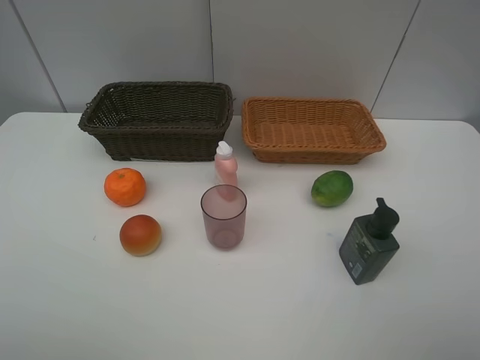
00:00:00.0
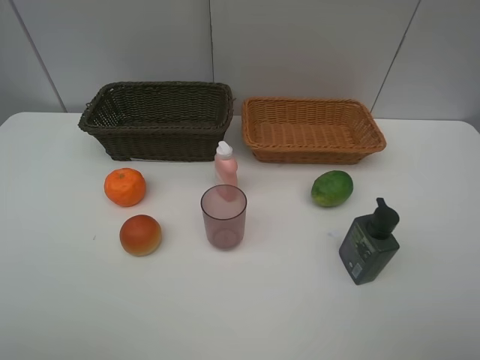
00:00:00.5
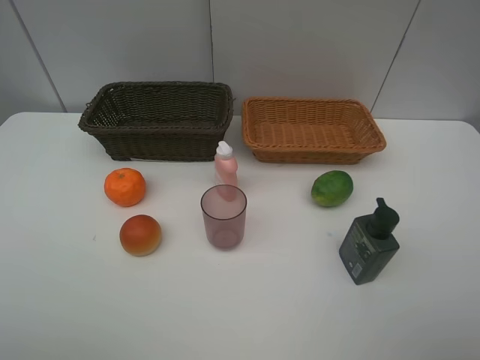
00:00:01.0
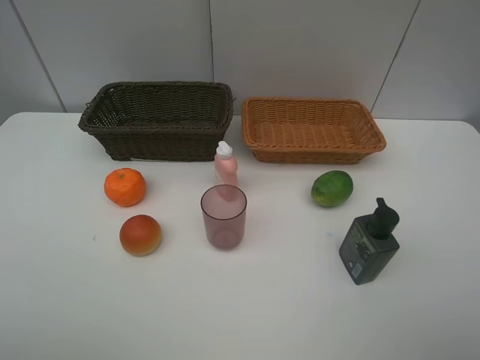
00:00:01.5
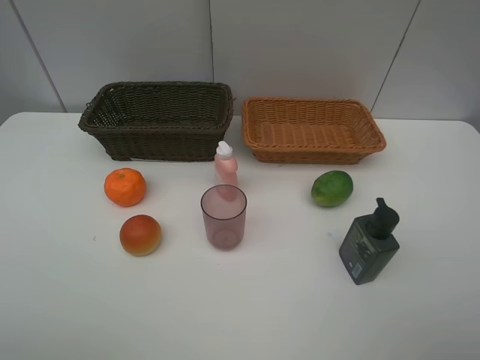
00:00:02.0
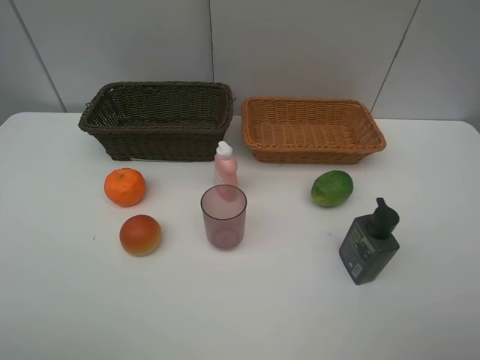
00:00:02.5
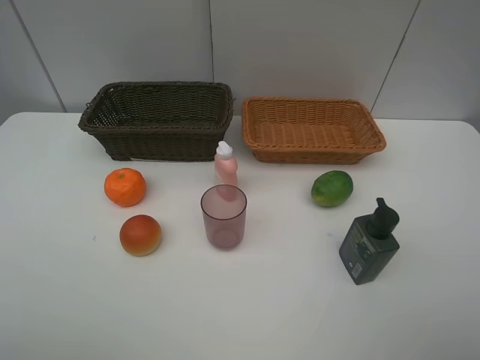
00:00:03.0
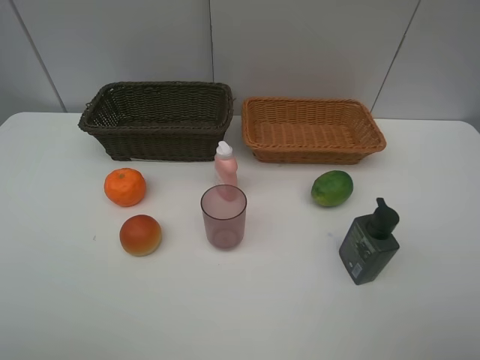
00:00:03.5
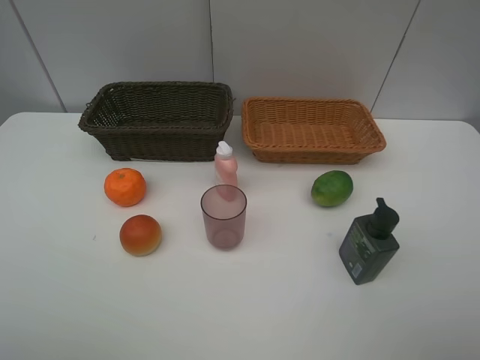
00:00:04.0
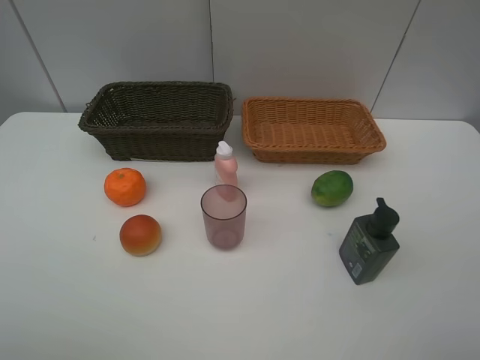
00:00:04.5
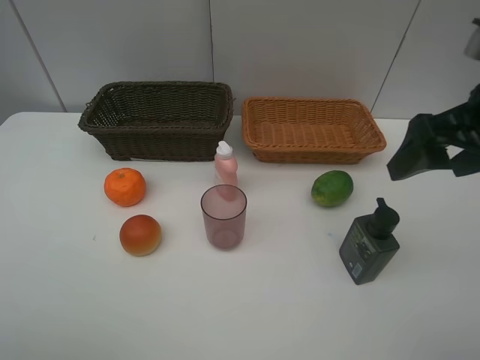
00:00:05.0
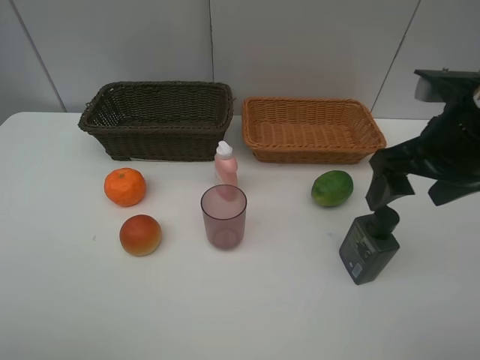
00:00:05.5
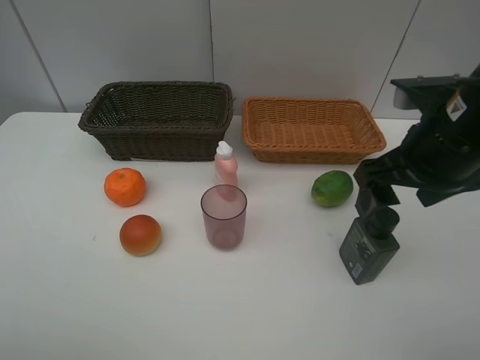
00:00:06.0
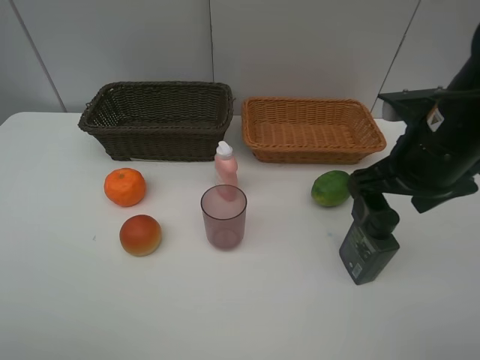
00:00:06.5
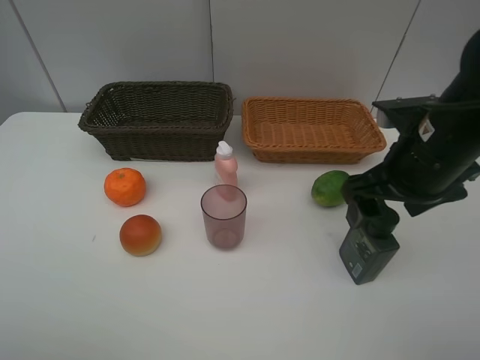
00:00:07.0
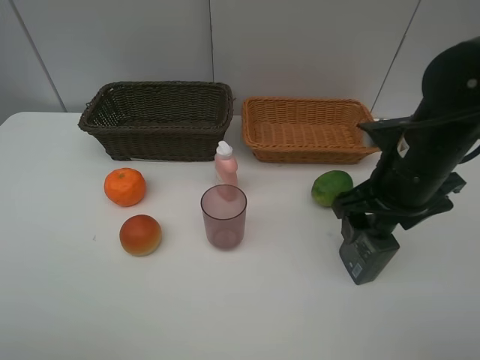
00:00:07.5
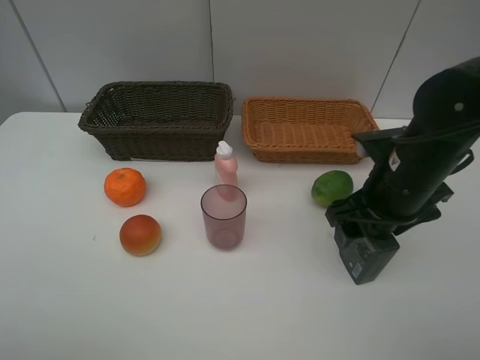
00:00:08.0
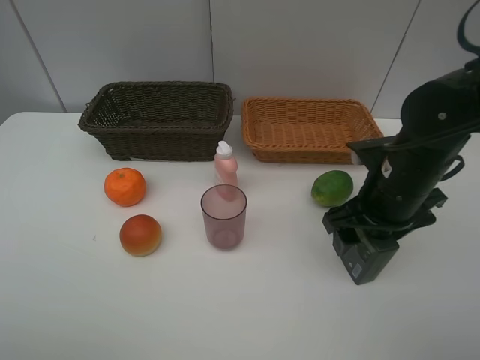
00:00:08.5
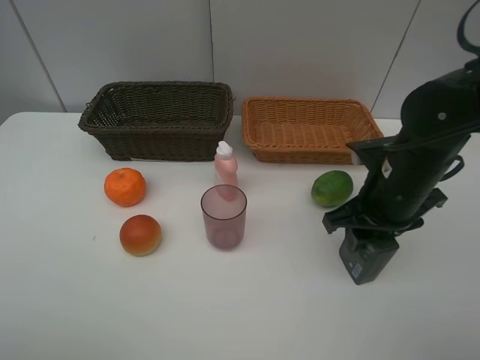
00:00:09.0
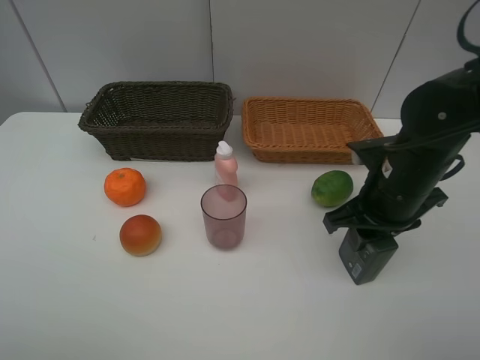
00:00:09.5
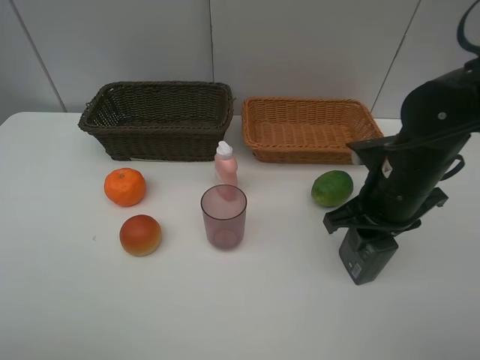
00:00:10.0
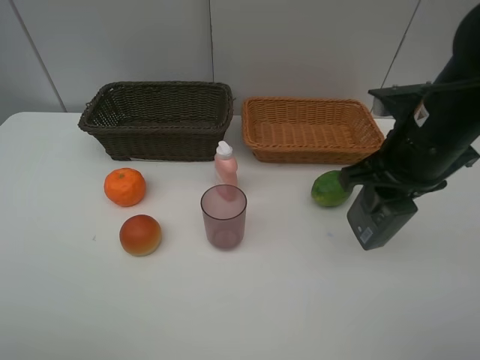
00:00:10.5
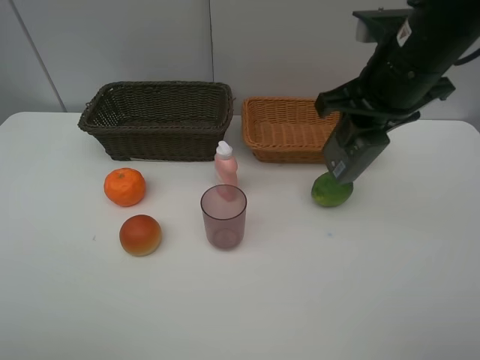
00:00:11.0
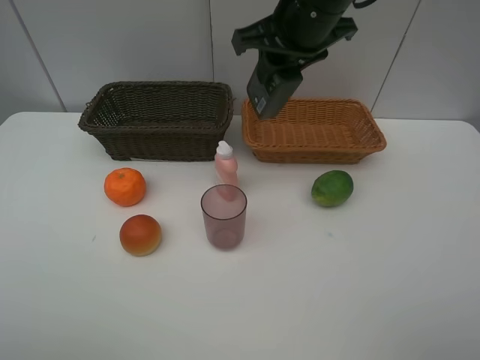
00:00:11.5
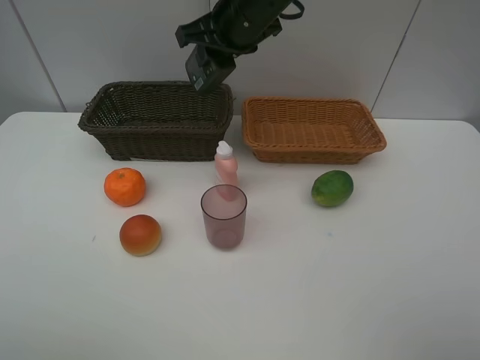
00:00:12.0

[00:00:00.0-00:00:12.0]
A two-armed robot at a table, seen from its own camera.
Task of the whole recording: place multiple objects separately in different baskets.
00:00:00.0 to 00:00:04.0: Neither gripper changes place.
00:00:04.0 to 00:00:06.0: The right gripper is displaced forward and to the left by about 25 cm.
00:00:06.0 to 00:00:08.0: The right gripper is displaced downward by approximately 5 cm.
00:00:08.0 to 00:00:10.0: The right gripper closes.
00:00:10.0 to 00:00:12.0: The right gripper travels to the left, forward and upward by roughly 25 cm.

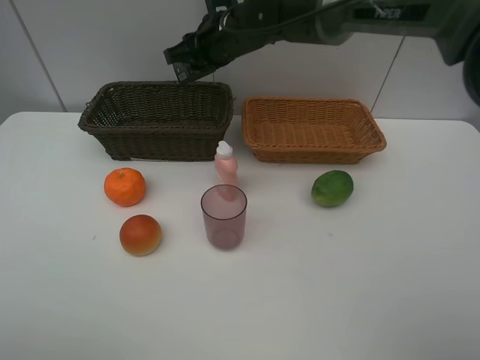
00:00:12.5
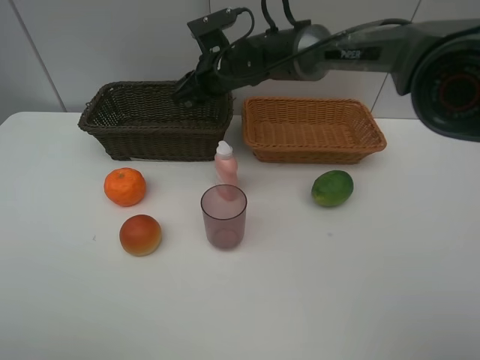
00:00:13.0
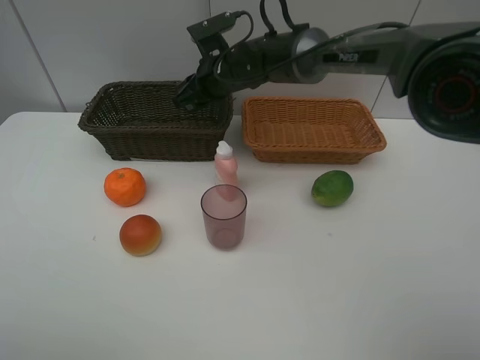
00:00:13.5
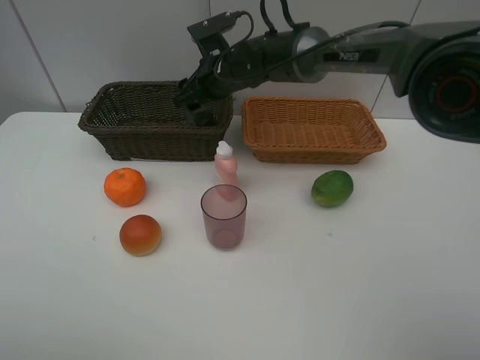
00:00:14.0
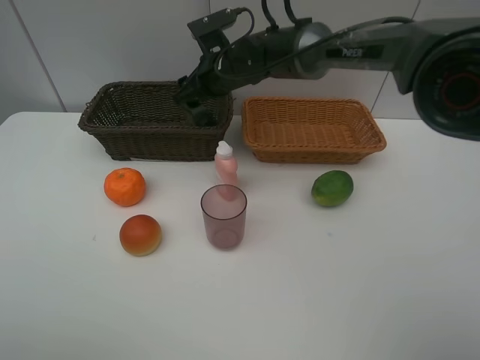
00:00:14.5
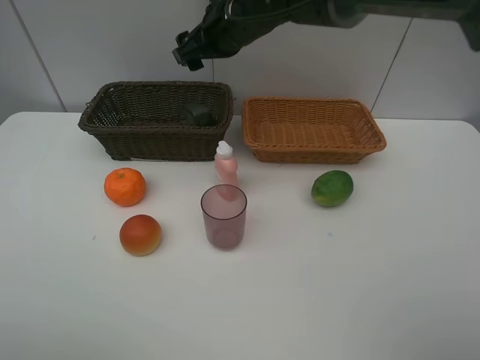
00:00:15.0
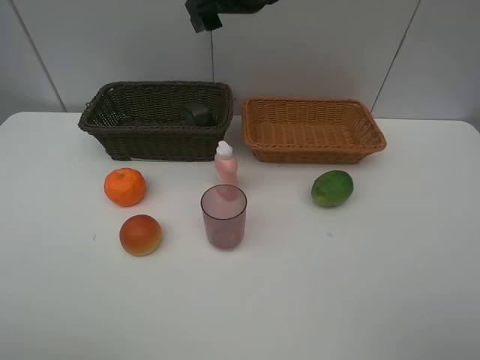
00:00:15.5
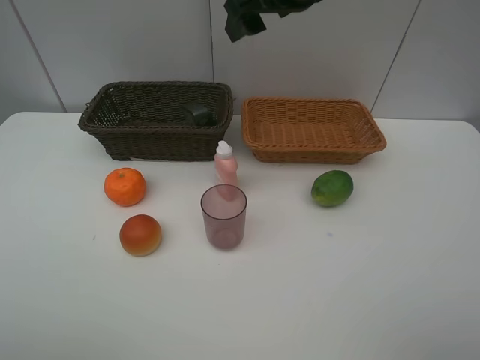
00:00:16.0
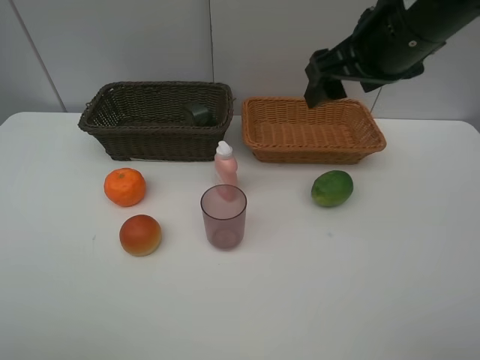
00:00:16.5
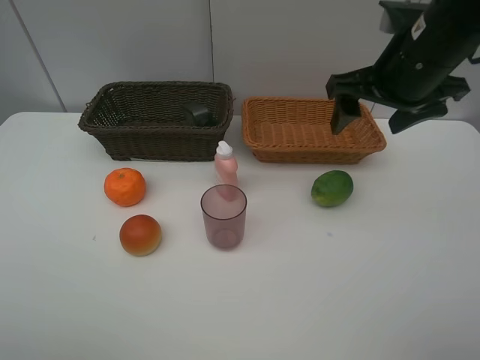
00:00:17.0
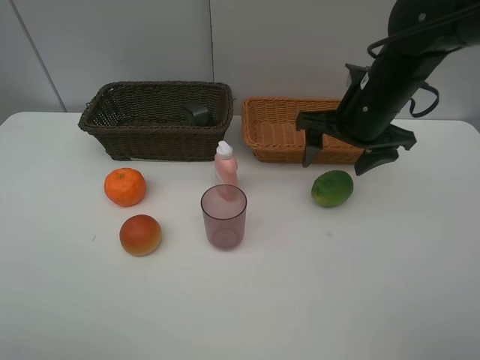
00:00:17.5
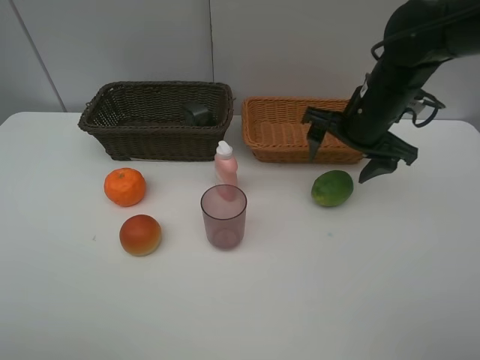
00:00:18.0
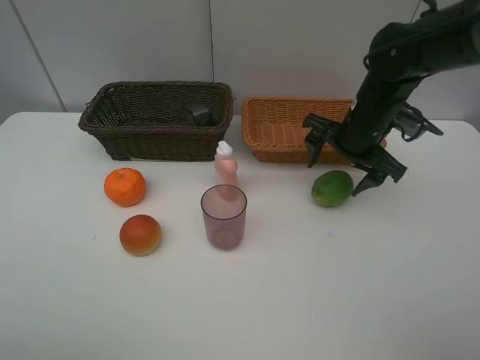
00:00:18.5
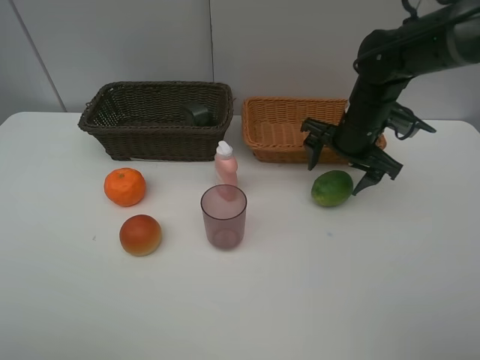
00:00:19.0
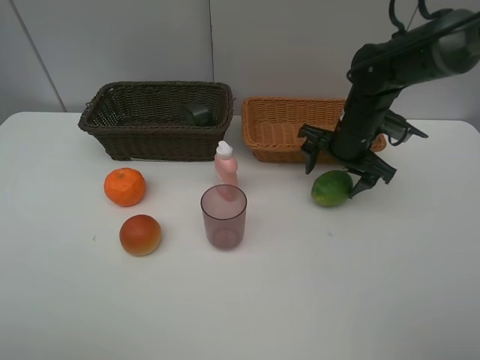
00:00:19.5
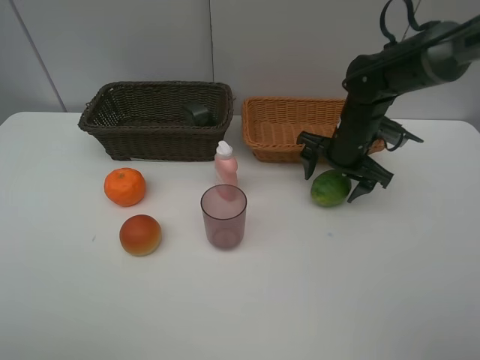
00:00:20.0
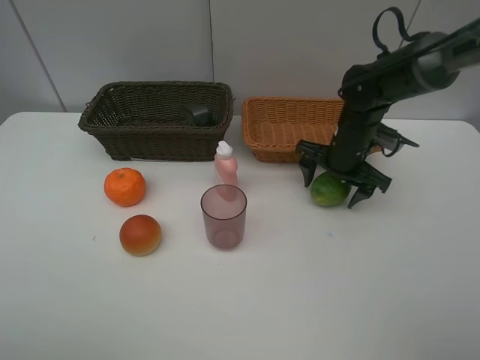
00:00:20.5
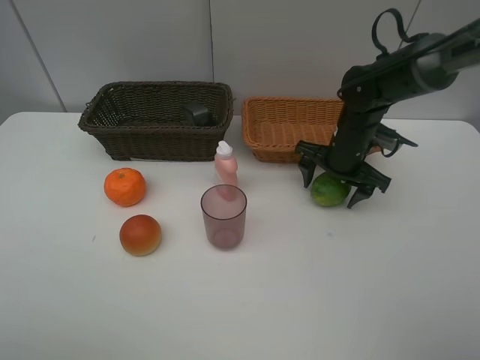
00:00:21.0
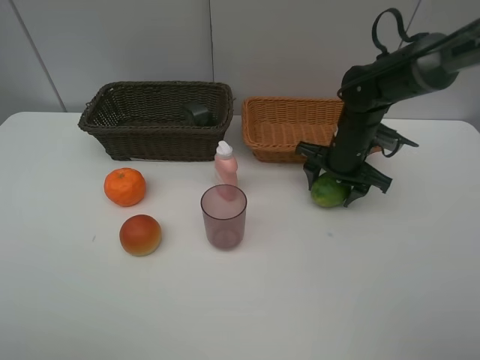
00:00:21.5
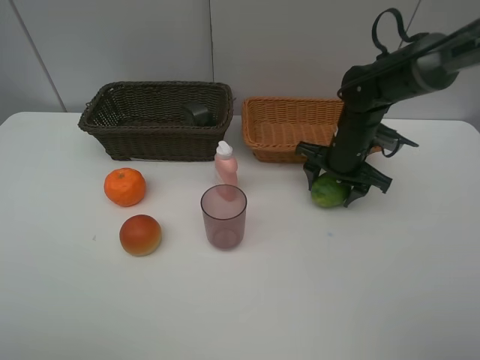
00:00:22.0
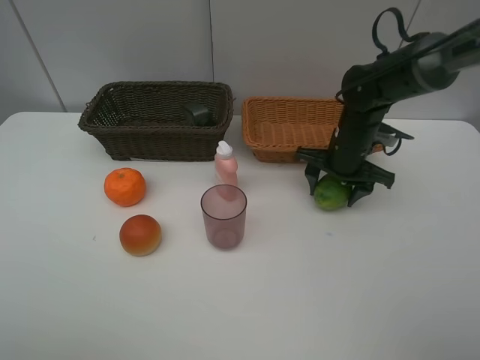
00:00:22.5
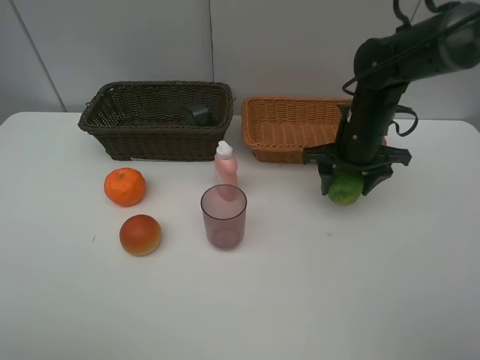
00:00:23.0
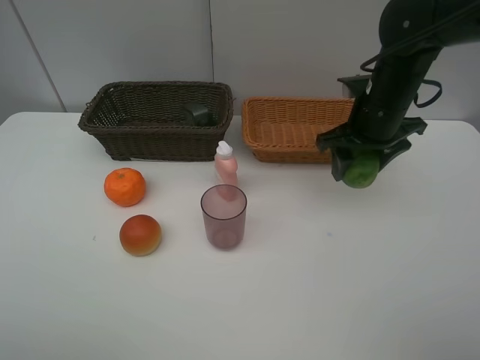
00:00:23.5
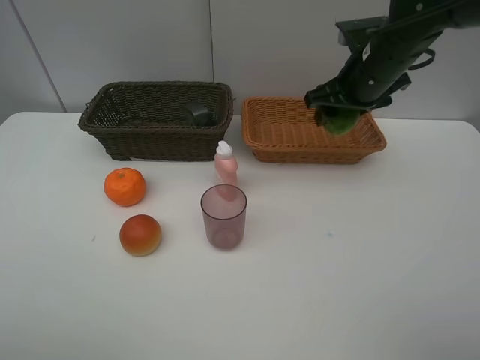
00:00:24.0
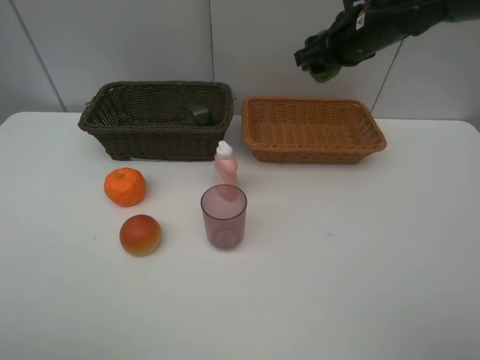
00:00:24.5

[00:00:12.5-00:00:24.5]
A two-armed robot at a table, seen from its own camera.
Task of the whole recording: place multiple objects separately in different baskets.
00:00:12.5 to 00:00:14.5: The right gripper is displaced downward by approximately 5 cm, and opens.
00:00:14.5 to 00:00:16.5: The right gripper moves backward, to the right and upward, approximately 30 cm.
00:00:16.5 to 00:00:18.5: The right gripper goes some 15 cm downward and forward.
00:00:18.5 to 00:00:20.5: The right gripper is displaced downward by about 5 cm.
00:00:20.5 to 00:00:22.5: The grippers make only small movements.
00:00:22.5 to 00:00:24.5: The right gripper goes about 15 cm upward.

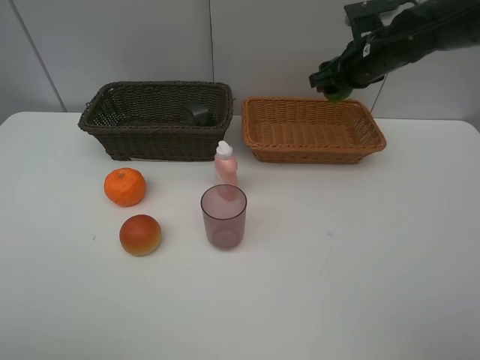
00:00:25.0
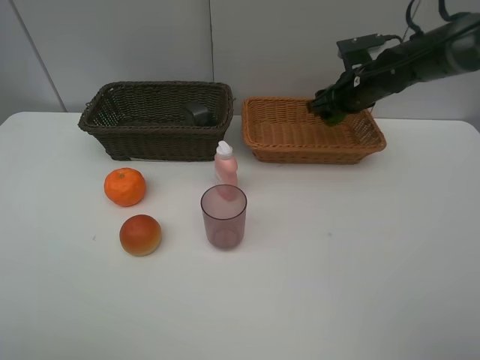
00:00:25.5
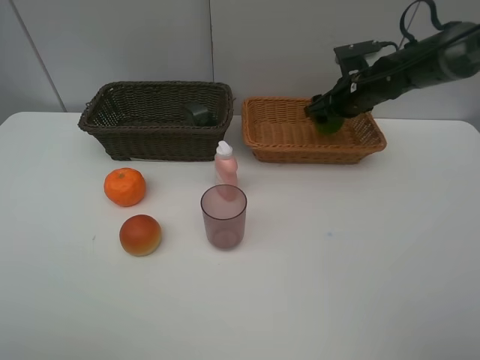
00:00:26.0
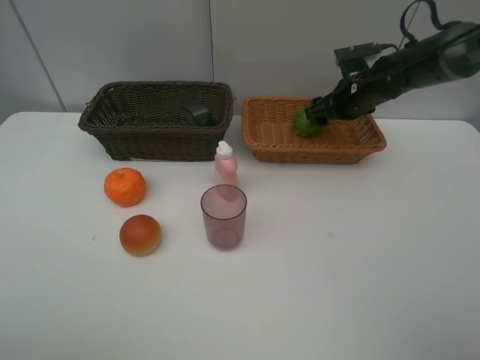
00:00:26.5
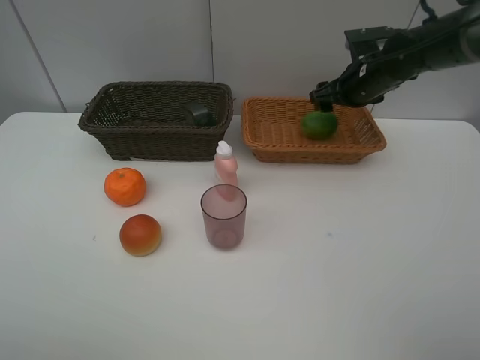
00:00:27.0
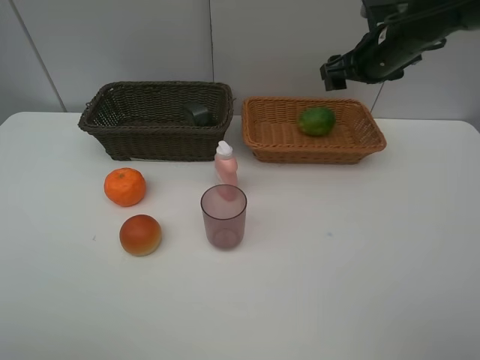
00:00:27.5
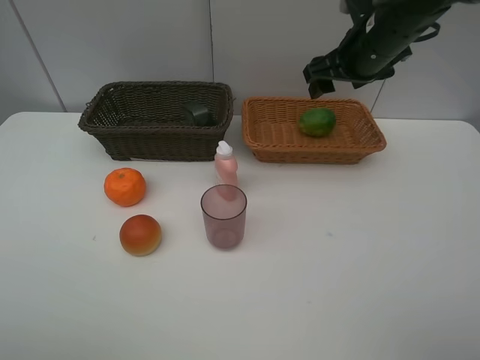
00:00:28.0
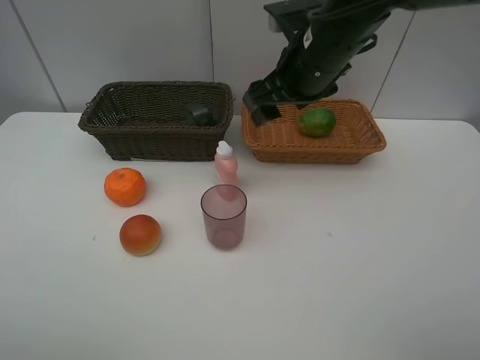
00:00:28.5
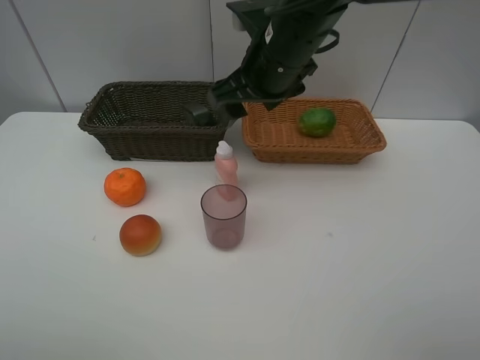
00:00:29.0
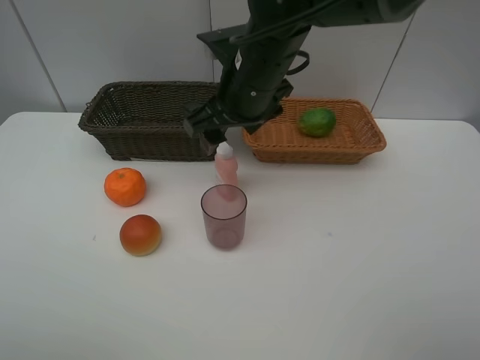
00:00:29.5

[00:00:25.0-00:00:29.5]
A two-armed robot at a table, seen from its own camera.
Task of the whole recording: place multiple objects separately in different baskets.
00:00:27.0 to 00:00:29.5: The right gripper moves to the left and backward, roughly 25 cm.
